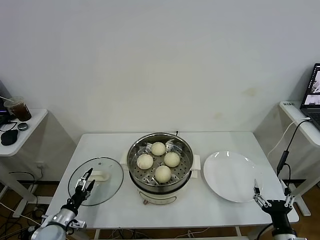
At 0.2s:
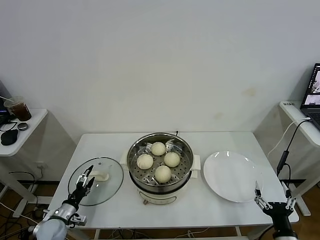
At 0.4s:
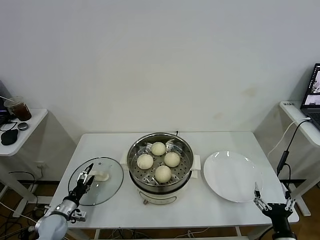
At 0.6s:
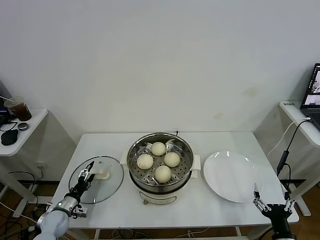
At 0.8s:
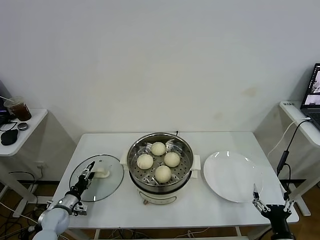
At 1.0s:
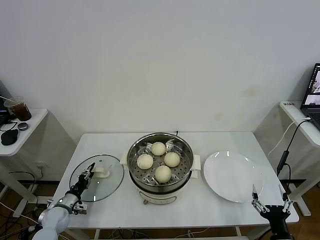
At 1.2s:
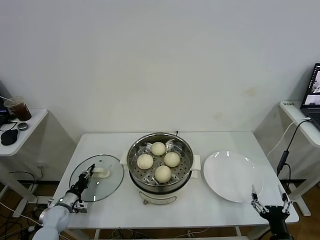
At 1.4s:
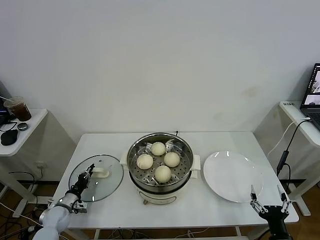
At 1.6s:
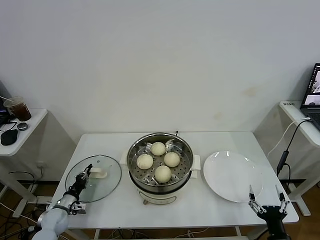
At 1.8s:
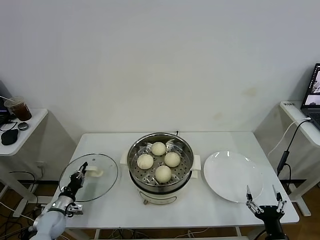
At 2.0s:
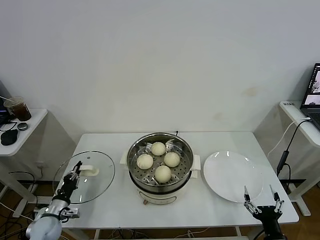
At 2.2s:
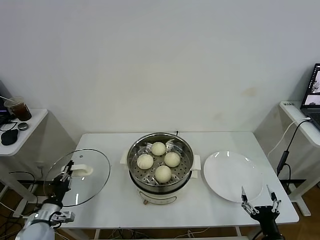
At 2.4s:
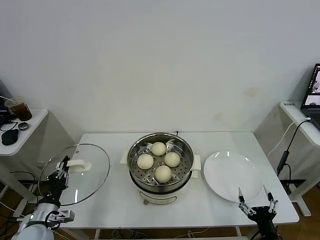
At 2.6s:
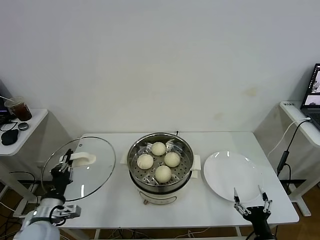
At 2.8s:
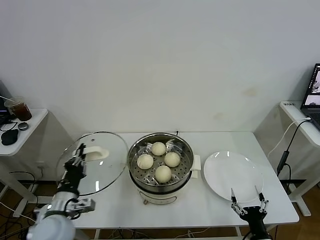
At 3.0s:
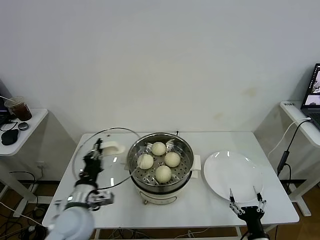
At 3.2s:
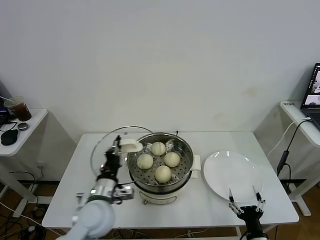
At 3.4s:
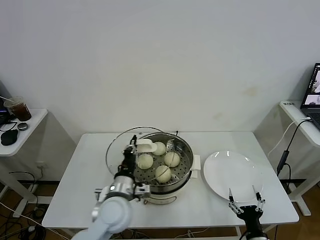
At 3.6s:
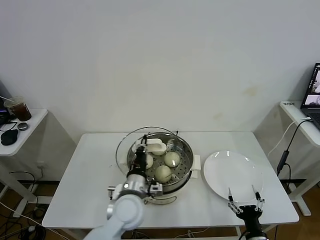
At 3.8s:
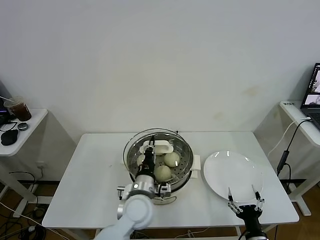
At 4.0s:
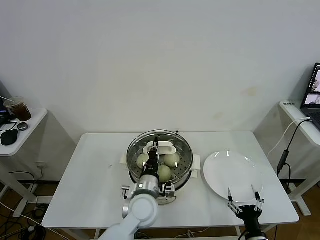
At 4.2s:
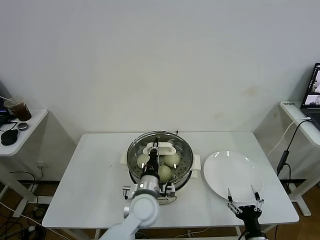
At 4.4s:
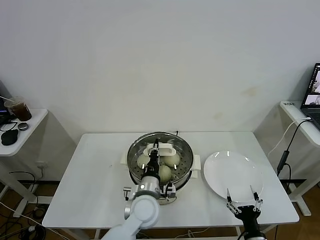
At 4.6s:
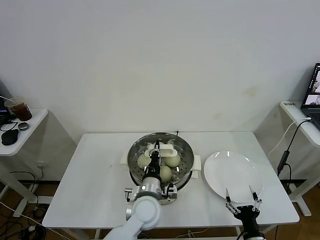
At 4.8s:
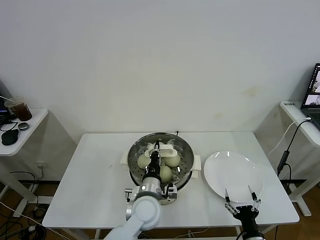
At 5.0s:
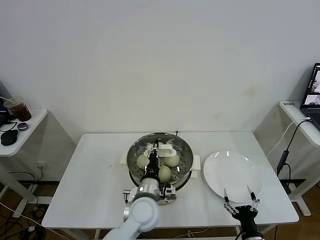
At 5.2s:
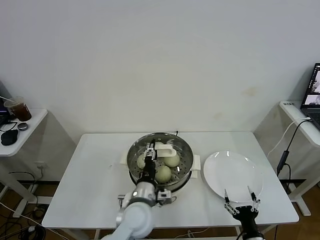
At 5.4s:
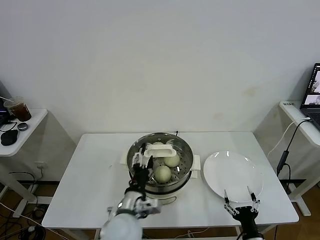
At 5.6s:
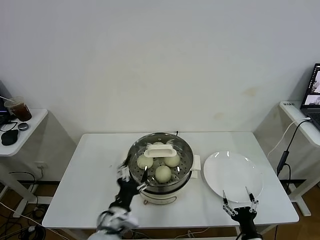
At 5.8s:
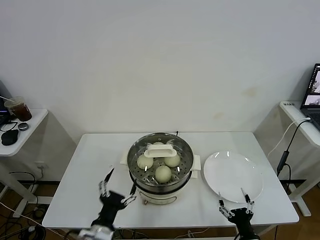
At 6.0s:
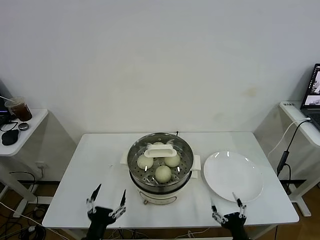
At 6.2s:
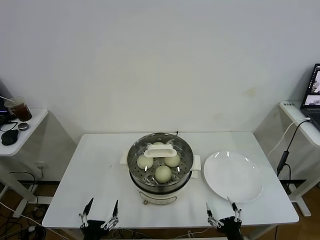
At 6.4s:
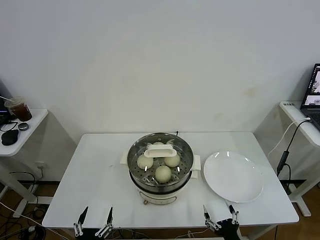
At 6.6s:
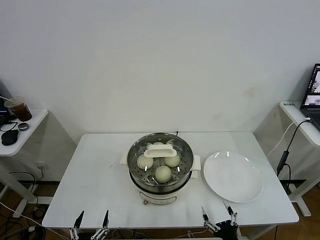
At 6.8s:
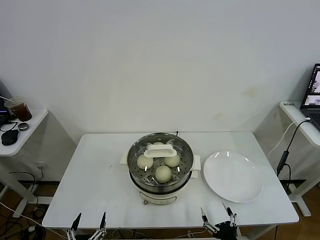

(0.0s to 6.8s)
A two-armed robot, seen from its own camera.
Task of the whole recording: take steamed baozi put them in steamer.
Step, 1.6s - 5.6s: Place the pot lid on the steamer with left gripper.
0.0s - 1.4s: The left gripper moves forward, roughly 10 cm, and closes.
1.4s - 2.8s: The left gripper moves upward, to the right and backward, some 25 cm.
2.8s - 4.0s: The left gripper heads to the right, covering approximately 25 cm.
4.0s - 5.4s: The left gripper moves approximately 5 cm, and opens its fingers.
5.4s - 6.8s: The left gripper shifts some 30 cm backward, to the left and downward. Meanwhile the right gripper changes place by some 5 cm.

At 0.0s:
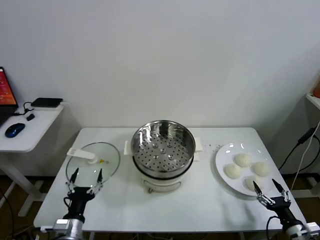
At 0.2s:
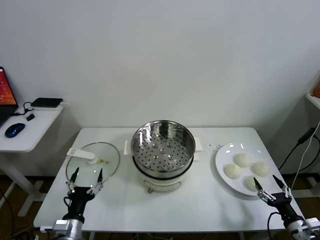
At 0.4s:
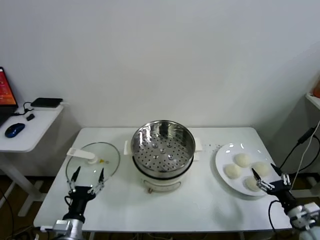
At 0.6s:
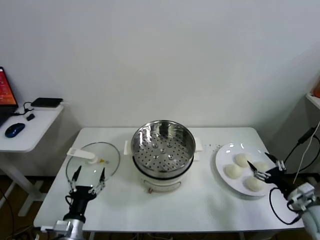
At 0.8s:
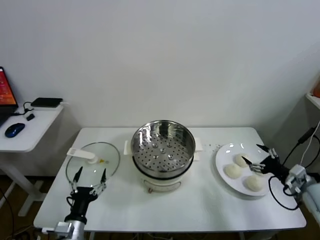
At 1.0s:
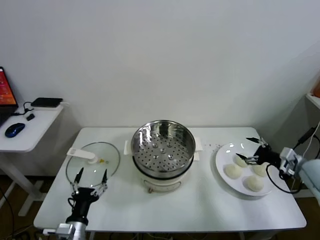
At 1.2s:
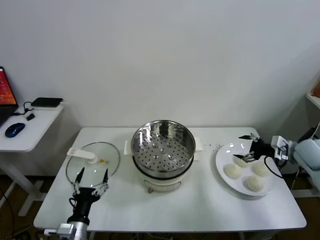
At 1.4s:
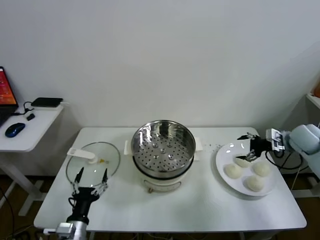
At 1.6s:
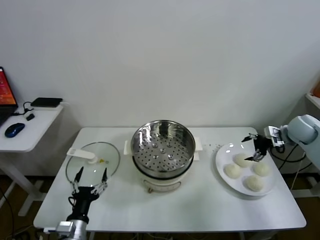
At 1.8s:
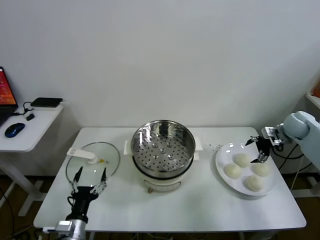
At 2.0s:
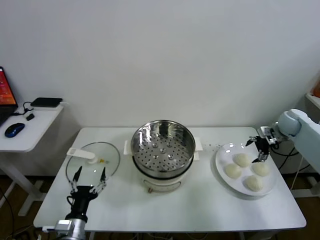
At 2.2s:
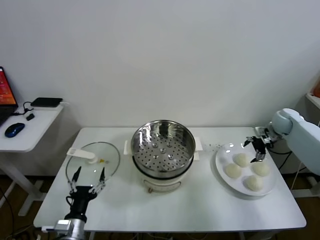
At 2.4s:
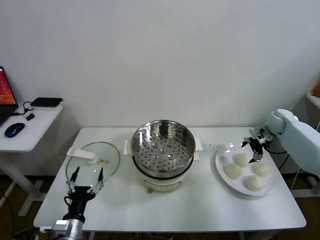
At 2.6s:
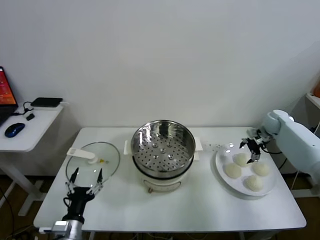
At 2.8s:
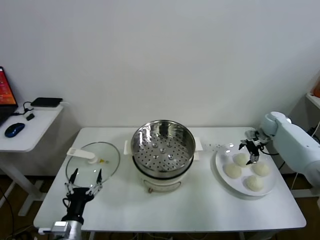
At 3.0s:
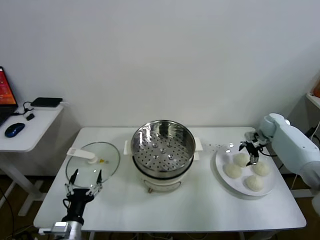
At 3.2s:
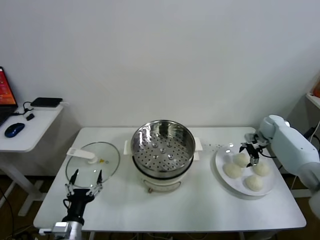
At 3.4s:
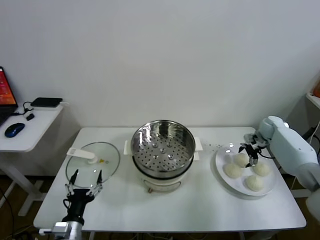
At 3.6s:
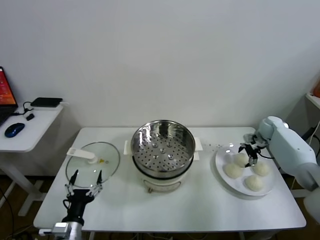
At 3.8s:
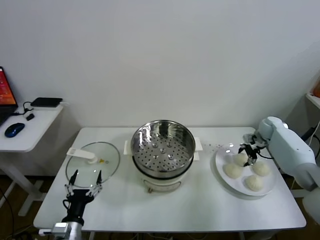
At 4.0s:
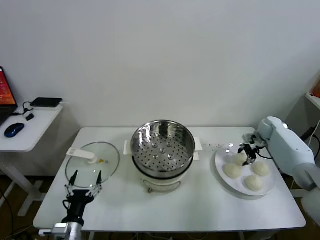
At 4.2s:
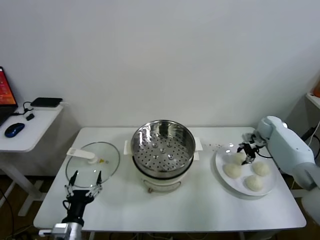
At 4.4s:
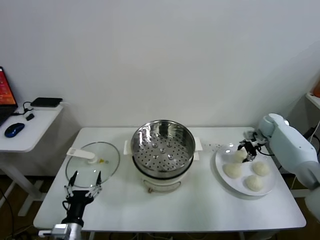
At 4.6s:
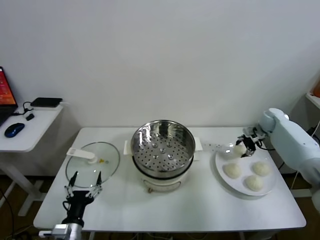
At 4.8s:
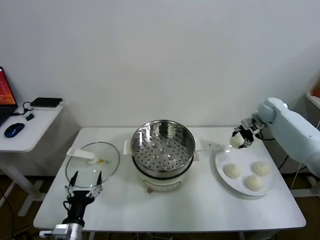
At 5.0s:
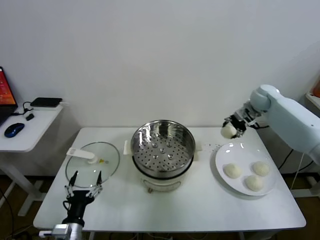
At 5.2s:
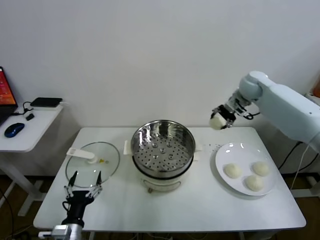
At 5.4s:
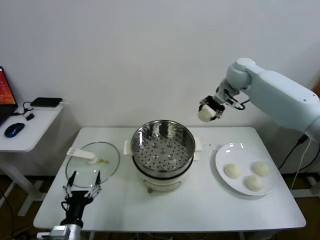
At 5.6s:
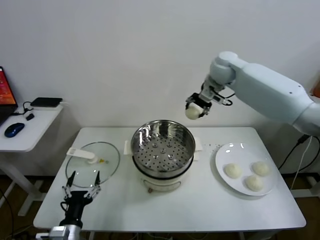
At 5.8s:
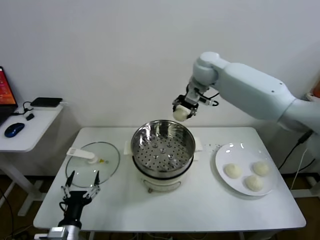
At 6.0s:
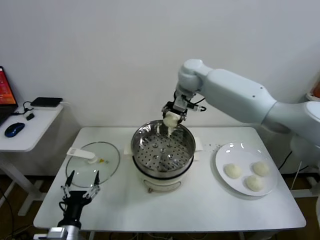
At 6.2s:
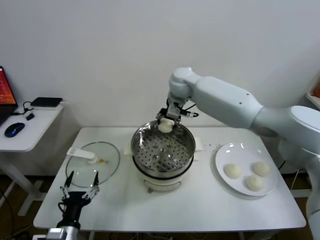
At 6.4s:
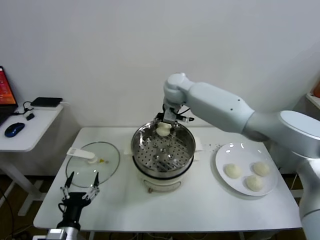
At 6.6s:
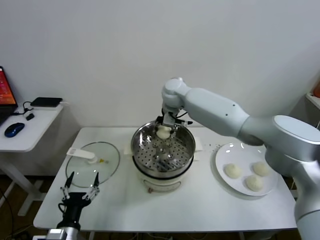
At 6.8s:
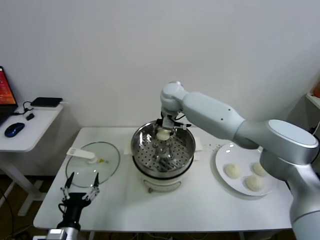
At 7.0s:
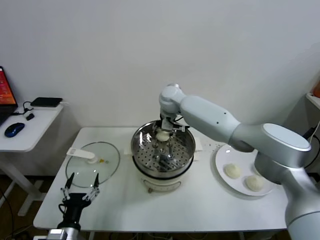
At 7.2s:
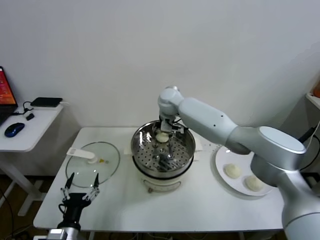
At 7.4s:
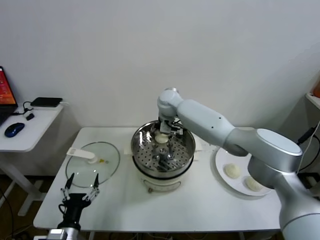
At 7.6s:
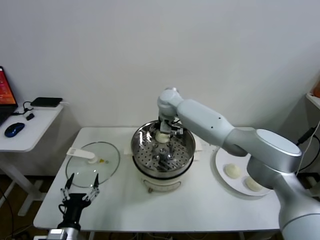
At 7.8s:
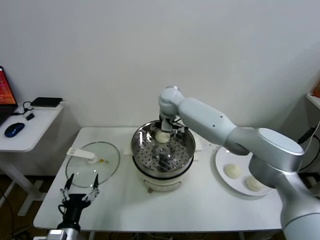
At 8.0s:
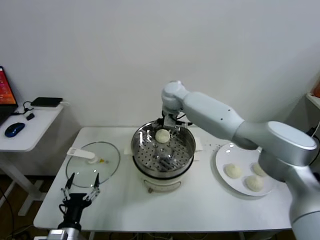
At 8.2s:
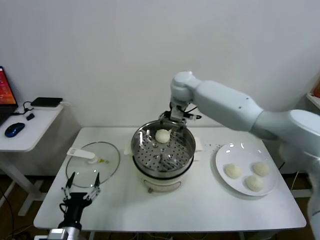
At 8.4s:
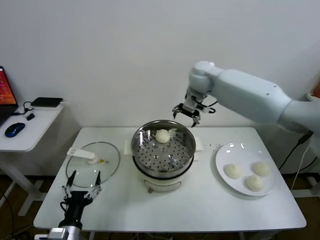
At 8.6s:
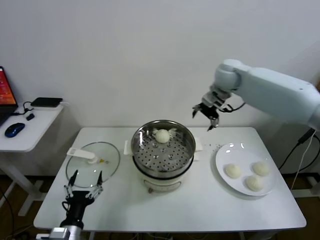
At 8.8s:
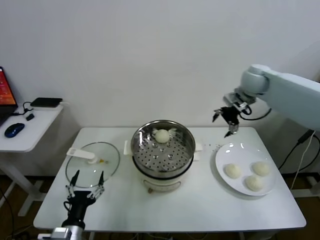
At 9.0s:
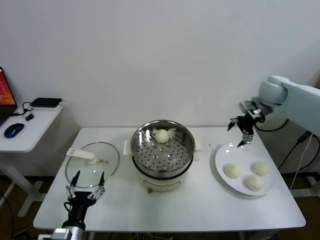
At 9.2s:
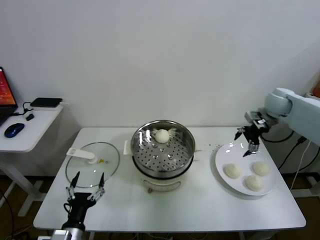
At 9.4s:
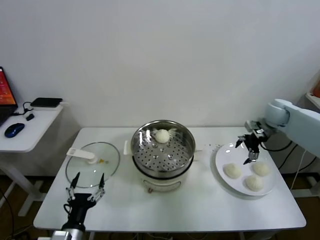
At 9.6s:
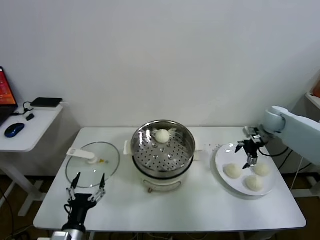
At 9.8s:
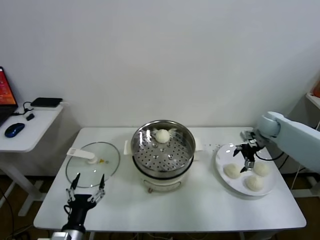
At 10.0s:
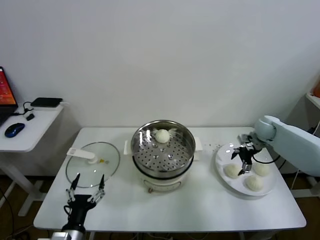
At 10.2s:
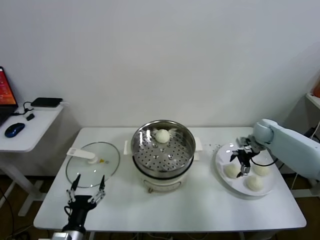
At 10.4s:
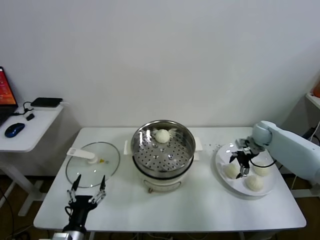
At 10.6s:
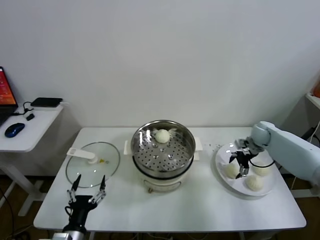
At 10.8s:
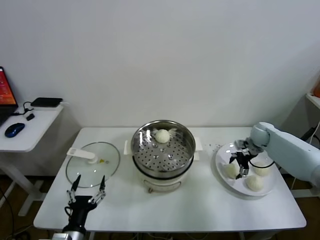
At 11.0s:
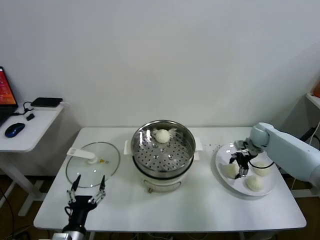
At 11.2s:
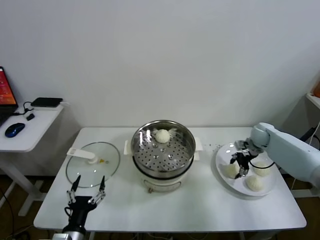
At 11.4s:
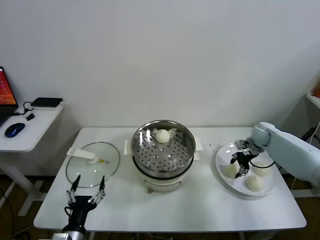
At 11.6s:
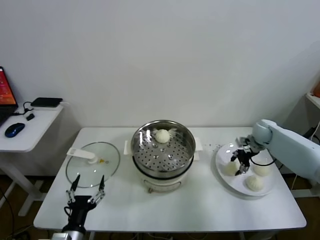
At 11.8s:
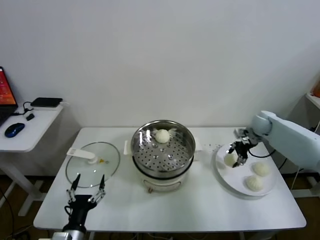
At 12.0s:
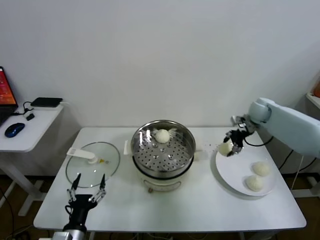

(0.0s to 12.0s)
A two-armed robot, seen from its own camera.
Task of the whole recording: take steamed baozi put them in steamer.
Step, 0.0s - 4.2s: Grasp the baozi in the plate with right gripper.
Step, 4.4s - 7.6s: Place the baozi on the steamer with right gripper.
Step, 8.0s - 11.2s: Grasp the baozi in the plate with right gripper.
1.6s - 3.0s: The right gripper shifts approximately 10 cm forward and downward.
3.0s - 4.4s: The right gripper closes.
4.4s - 6.0s: The right gripper goes some 40 cm to the left and upward.
6.0s - 7.6s: The right gripper travels downward and to the left by some 10 cm, and opens up.
7.6s - 9.0s: The right gripper shifts approximately 35 cm to the right.
9.0s - 10.4s: The right gripper shifts approximately 20 cm downward.
10.4s - 12.0s: The right gripper moves upward, about 10 cm, and closes.

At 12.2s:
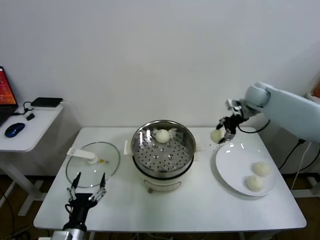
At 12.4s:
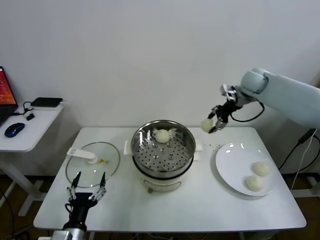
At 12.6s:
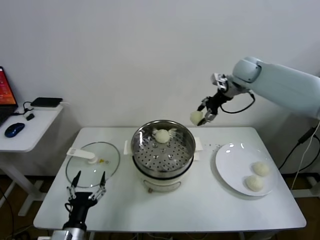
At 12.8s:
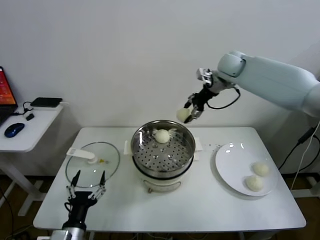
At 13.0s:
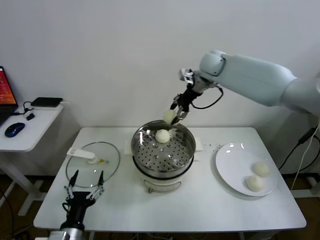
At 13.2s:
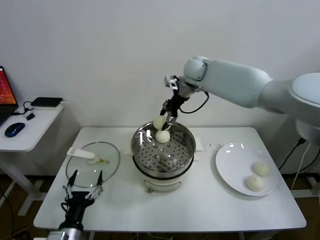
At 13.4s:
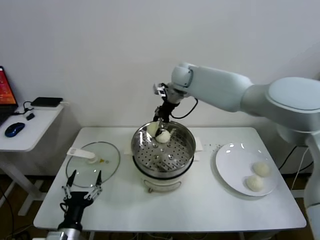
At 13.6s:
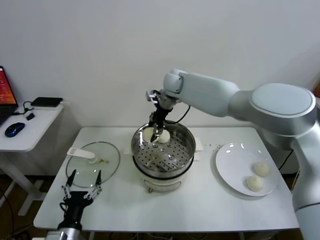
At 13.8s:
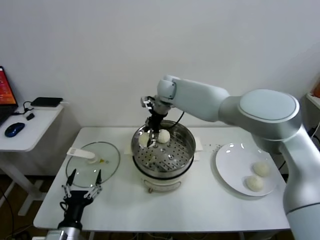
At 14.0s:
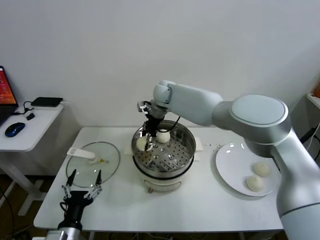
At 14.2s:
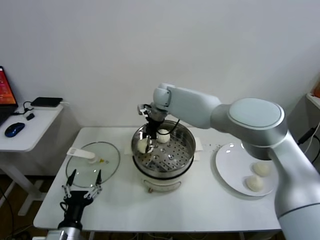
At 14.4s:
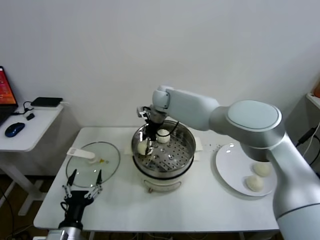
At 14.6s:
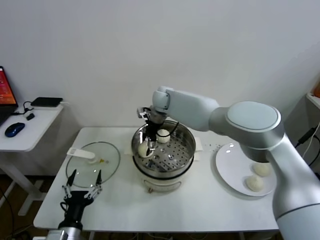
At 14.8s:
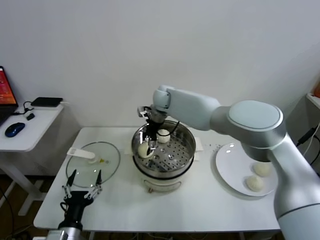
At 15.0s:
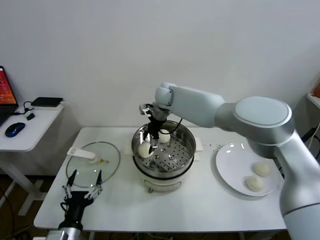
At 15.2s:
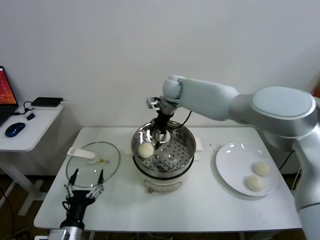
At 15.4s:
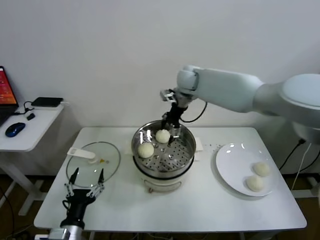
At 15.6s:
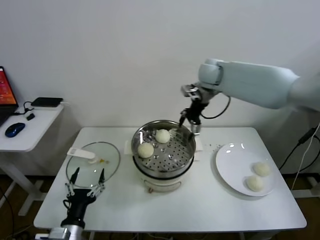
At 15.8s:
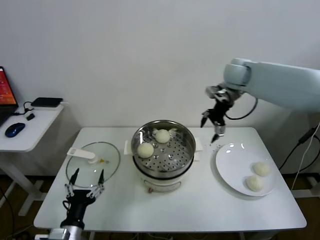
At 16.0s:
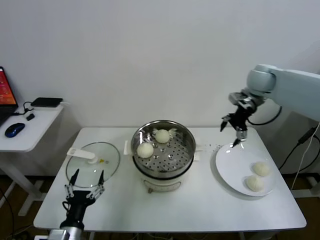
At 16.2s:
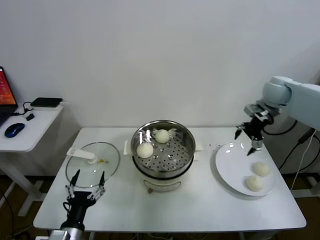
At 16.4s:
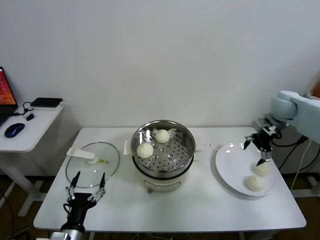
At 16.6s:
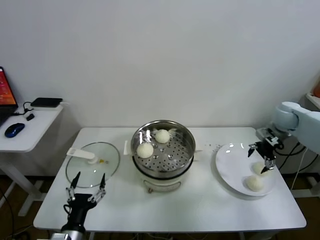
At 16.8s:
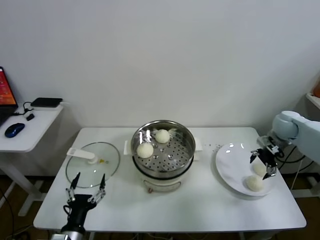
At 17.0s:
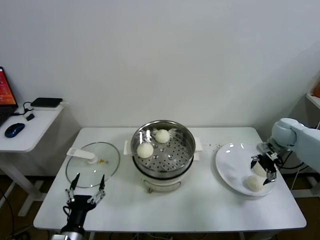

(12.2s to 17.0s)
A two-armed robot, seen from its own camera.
Task of the whole recording: take steamed baozi put them in steamer.
Step, 12.2s - 14.8s: Place the baozi on the steamer with right gripper.
12.2s - 13.8s: The right gripper shifts about 35 cm to the left.
13.8s - 15.4s: The right gripper shifts some 10 cm to the right and upward, and opens.
15.4s - 17.0s: The right gripper shifts about 40 cm to the right and downward.
